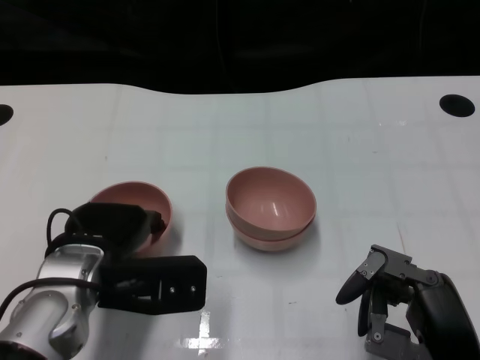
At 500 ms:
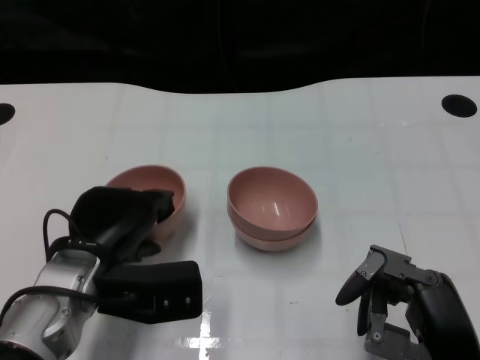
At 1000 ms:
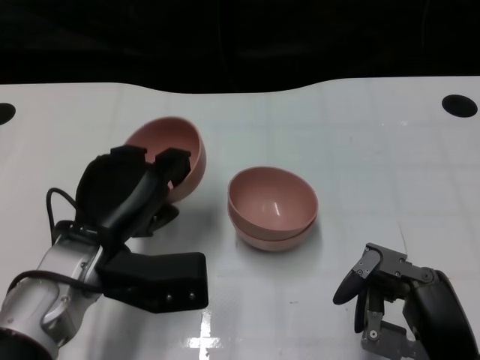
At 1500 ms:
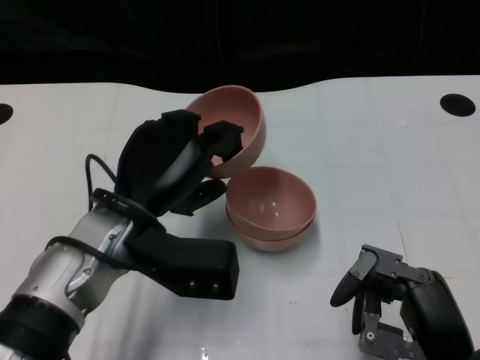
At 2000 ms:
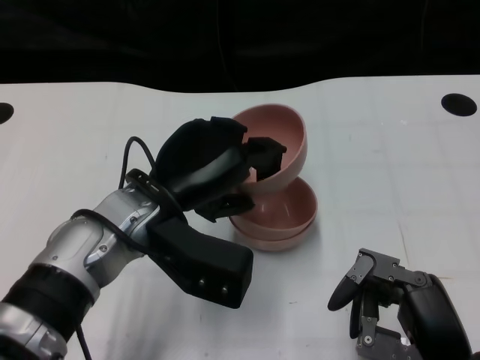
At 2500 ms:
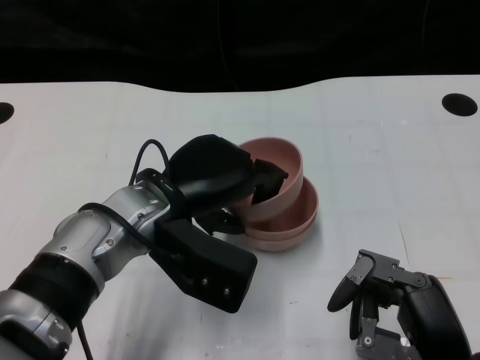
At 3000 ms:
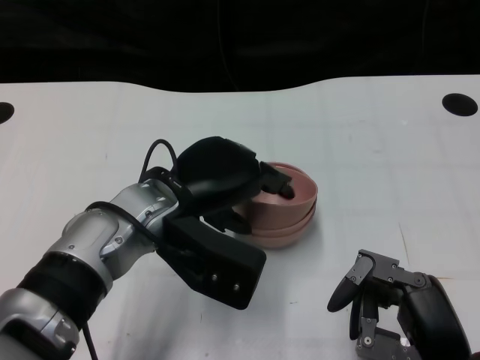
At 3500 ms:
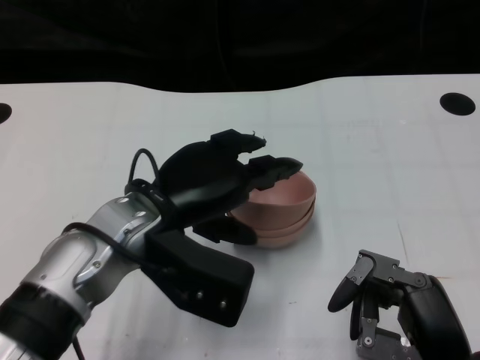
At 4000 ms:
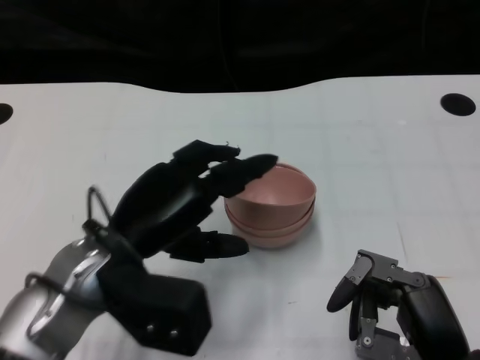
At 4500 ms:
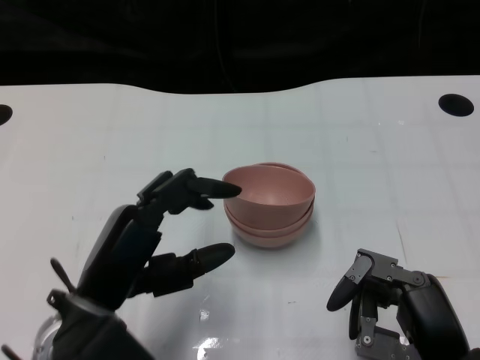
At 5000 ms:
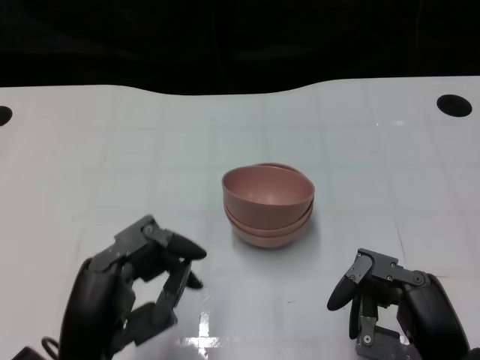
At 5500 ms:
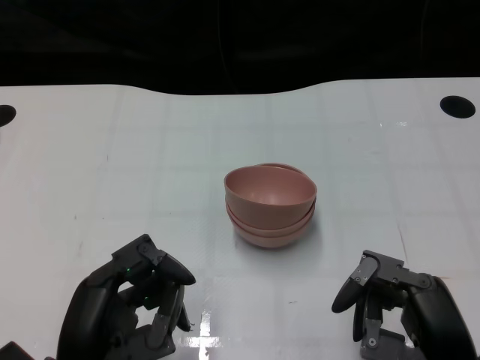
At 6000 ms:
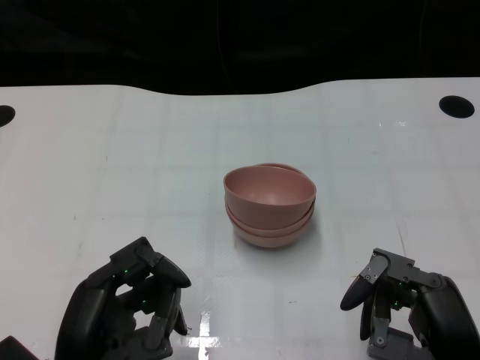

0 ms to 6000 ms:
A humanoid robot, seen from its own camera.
Task of the whole recording: Pick up the bowl on one side of the table and place it on top of the middle bowl, then pick up the bowl on the other side of the table and place it on top of the middle bowls.
Step, 1000 ms to 4000 ms: Place the bowl on the left onto the bowl in the middle with left gripper.
0 ms to 2000 ms: The left hand shifts approximately 5 cm to the right.
2000 ms to 4000 ms: The left hand shifts by about 5 cm.
4000 ms to 6000 ms: The left hand is displaced backward and downward by about 10 cm.
